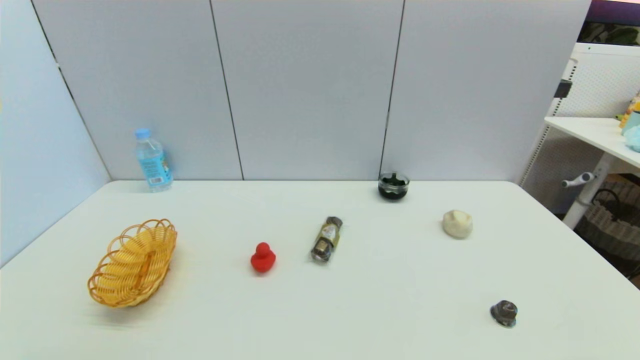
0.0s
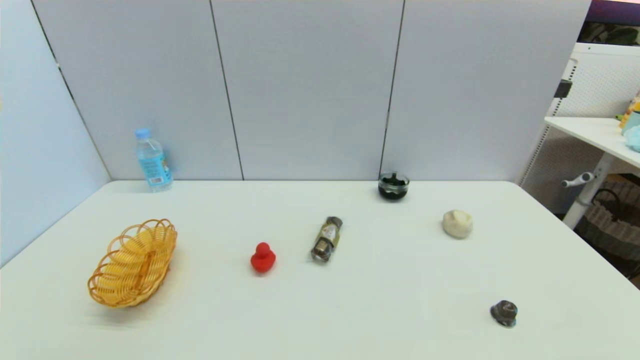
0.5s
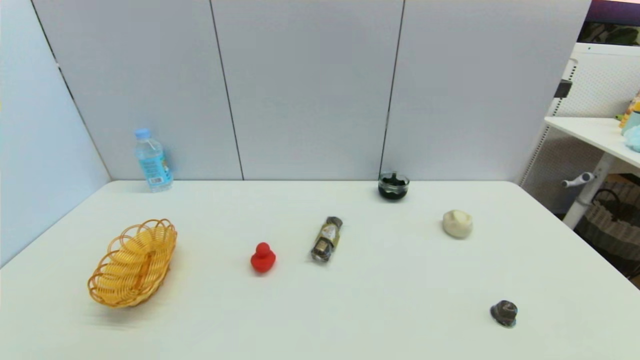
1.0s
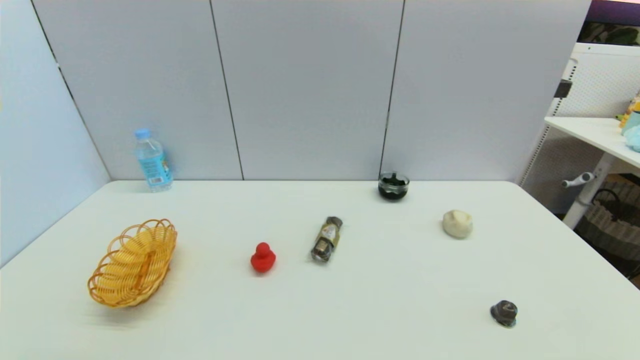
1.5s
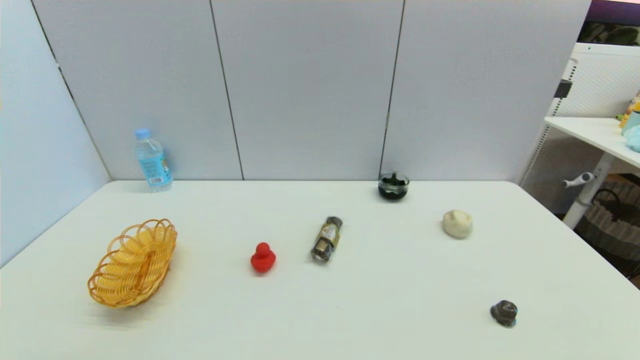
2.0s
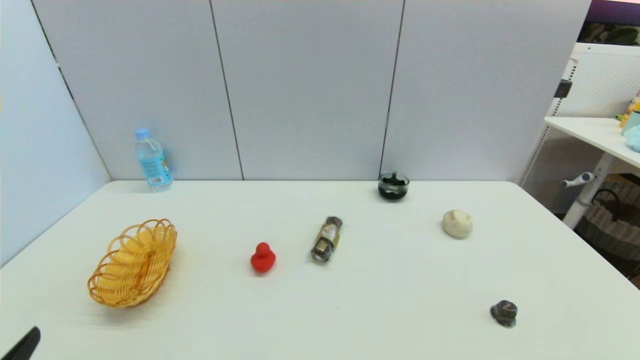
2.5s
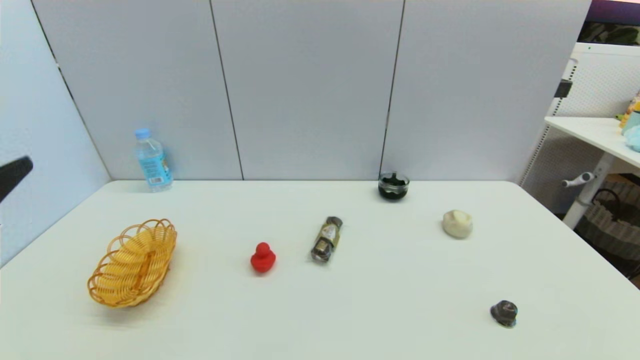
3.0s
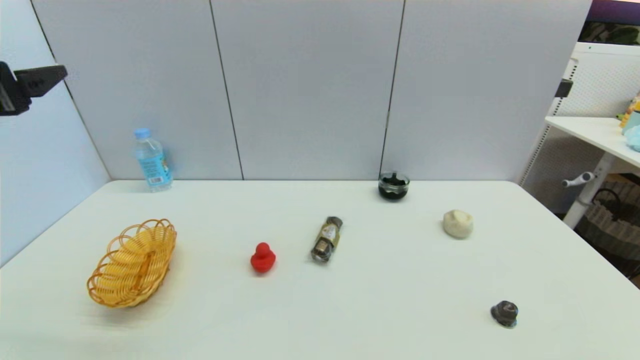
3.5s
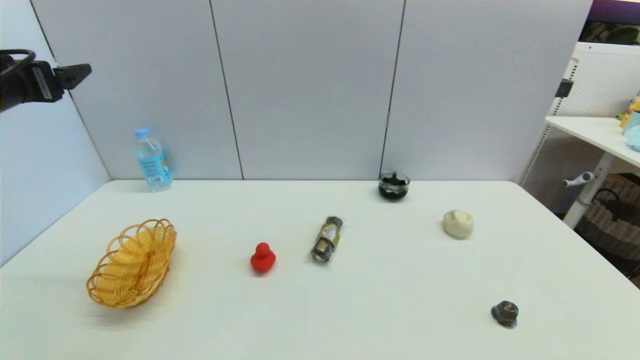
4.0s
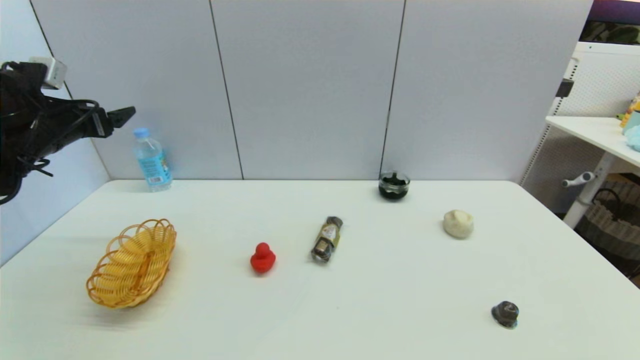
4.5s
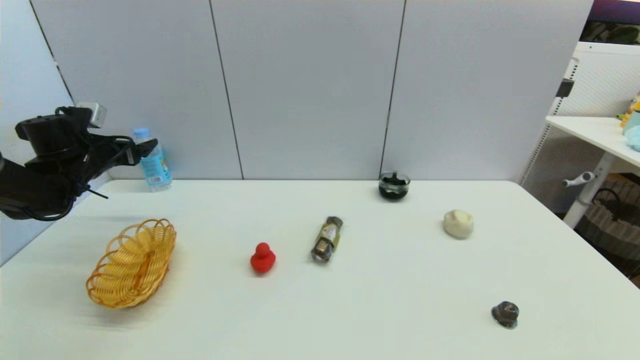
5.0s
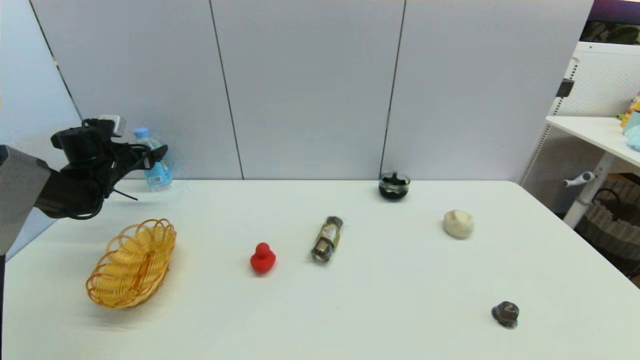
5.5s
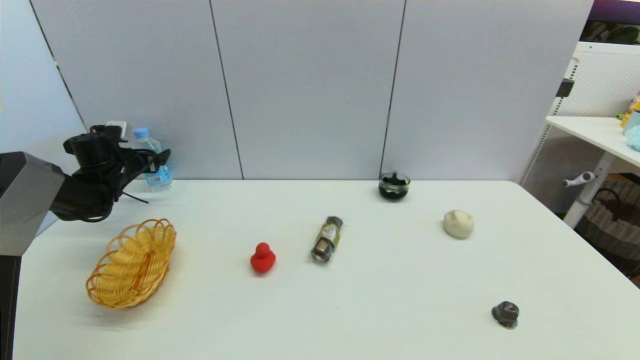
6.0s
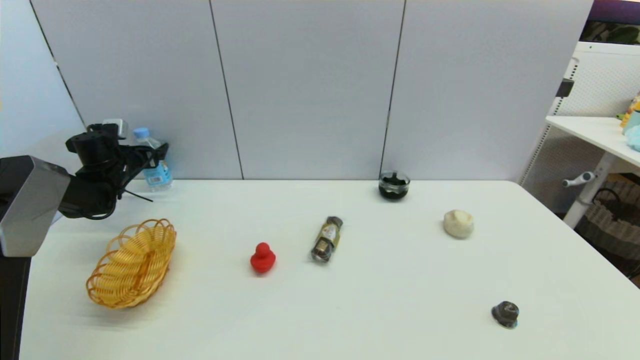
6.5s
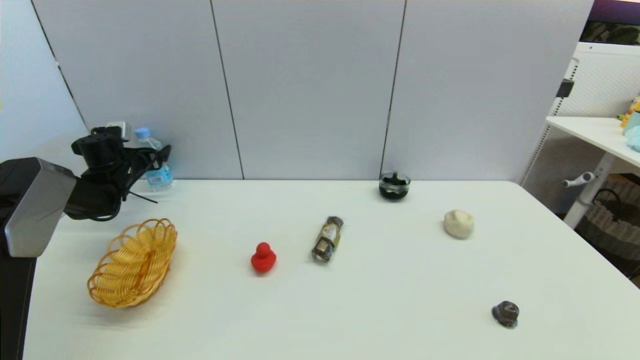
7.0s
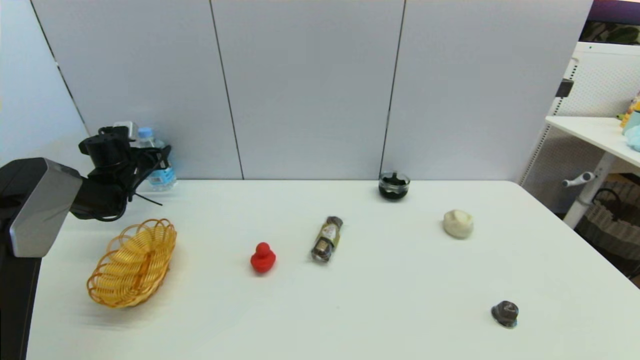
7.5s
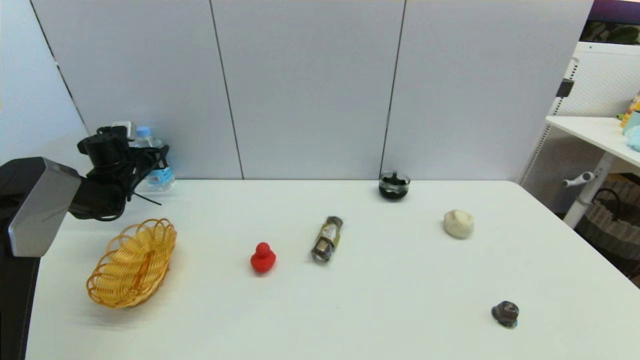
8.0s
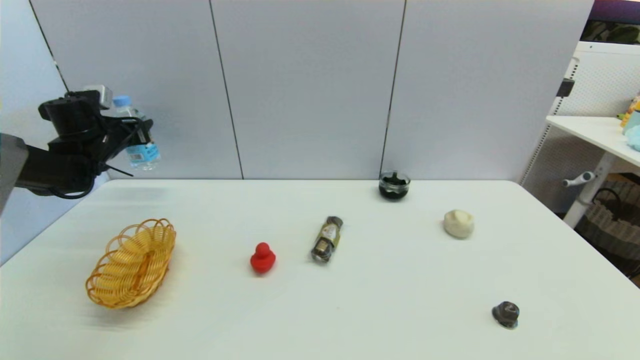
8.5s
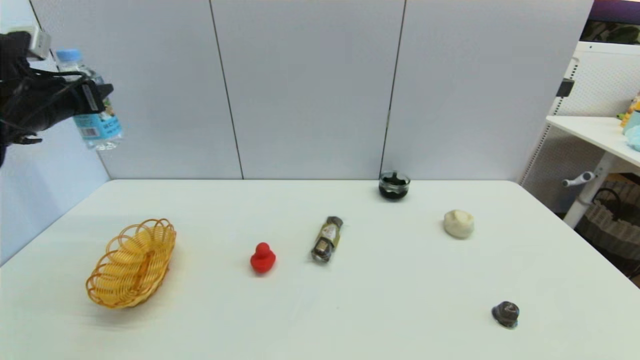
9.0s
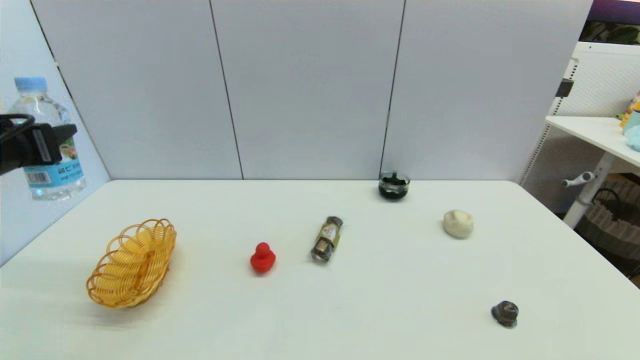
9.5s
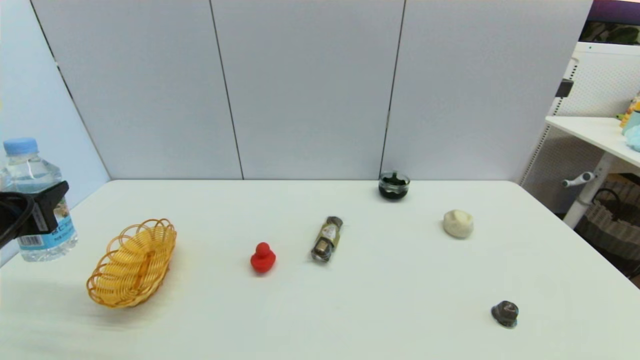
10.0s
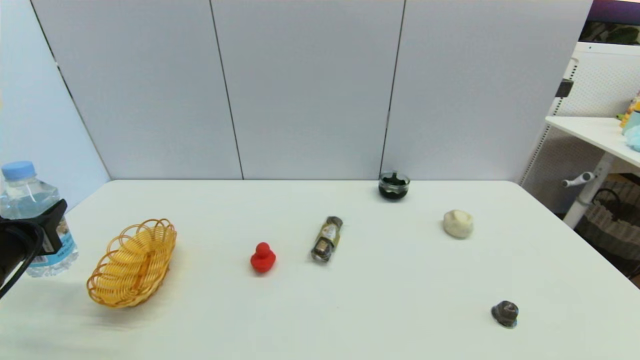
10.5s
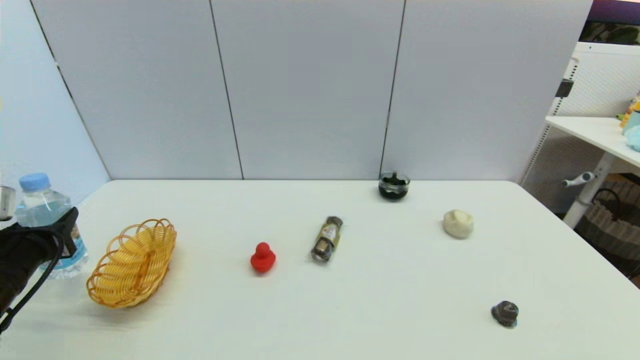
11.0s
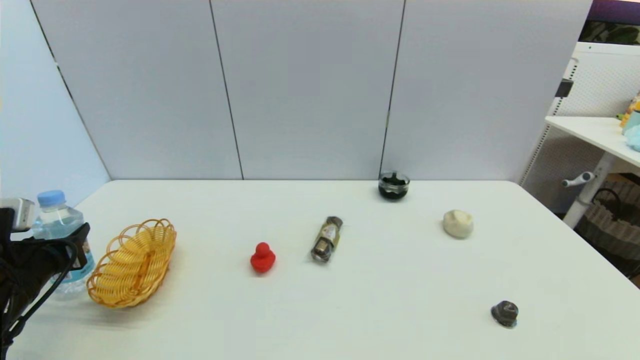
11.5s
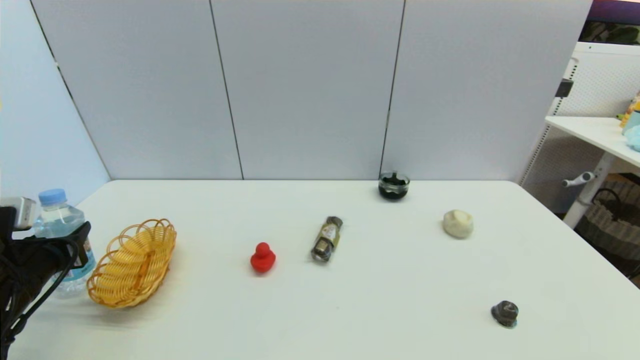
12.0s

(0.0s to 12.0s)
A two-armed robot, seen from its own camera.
Step, 2.5s - 8.0s: Grasp the soda water with left gripper.
2.0s - 4.0s: The left gripper moves forward and upward, some 40 cm.
4.0s - 6.0s: The left gripper moves downward and forward, approximately 30 cm.
6.0s - 8.0s: The left gripper closes up.
8.0s - 10.0s: The left gripper heads backward, covering about 30 cm.
10.0s - 12.0s: The left gripper shifts approximately 10 cm downward.

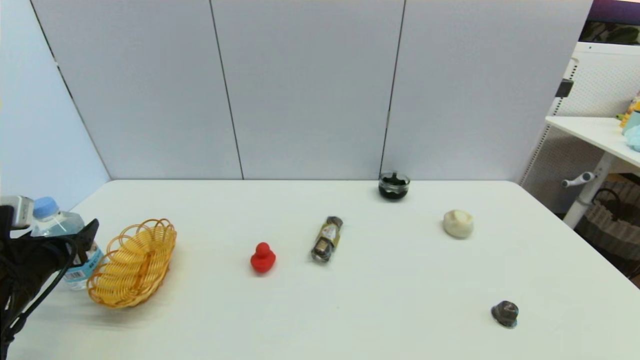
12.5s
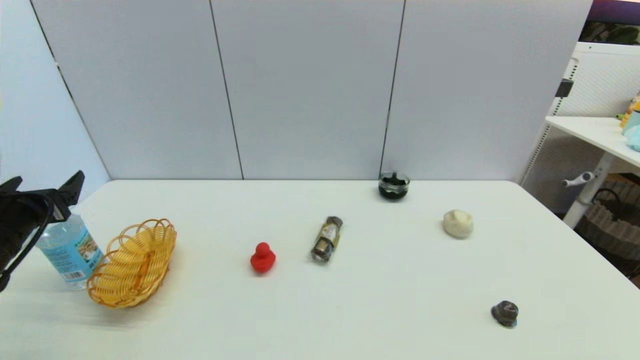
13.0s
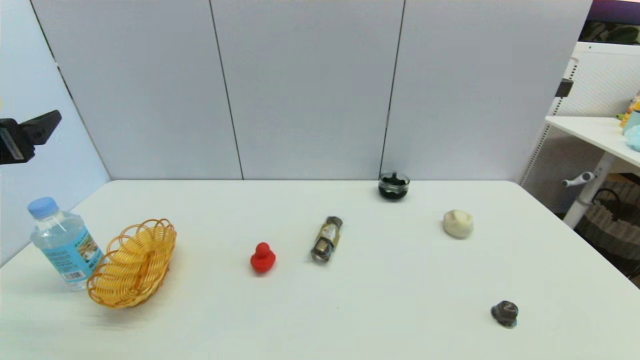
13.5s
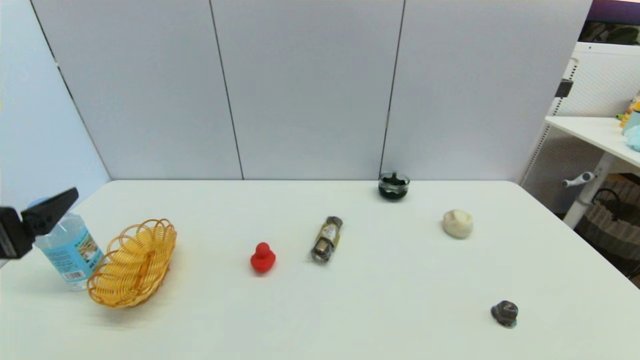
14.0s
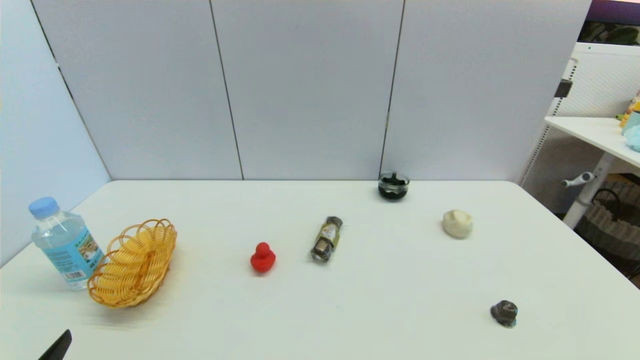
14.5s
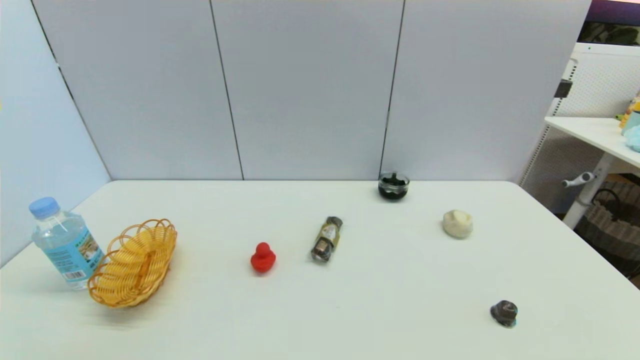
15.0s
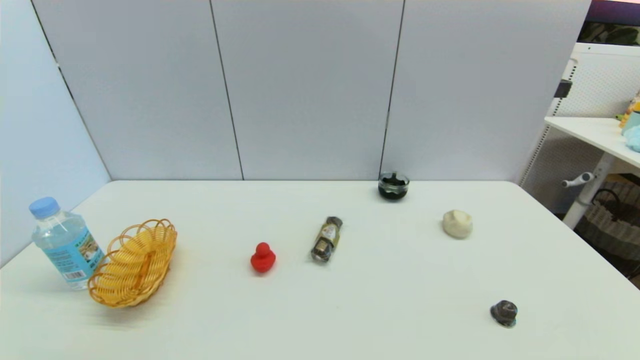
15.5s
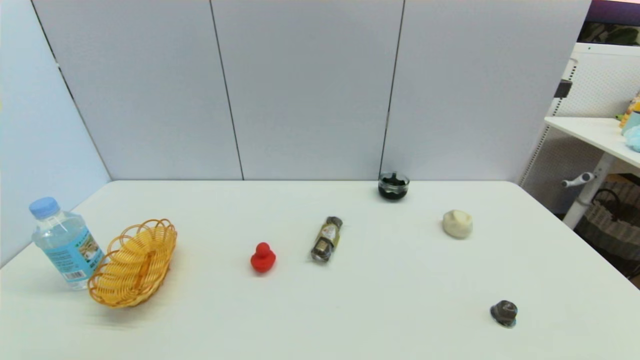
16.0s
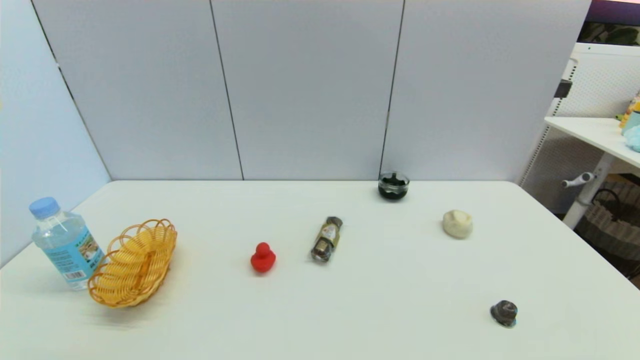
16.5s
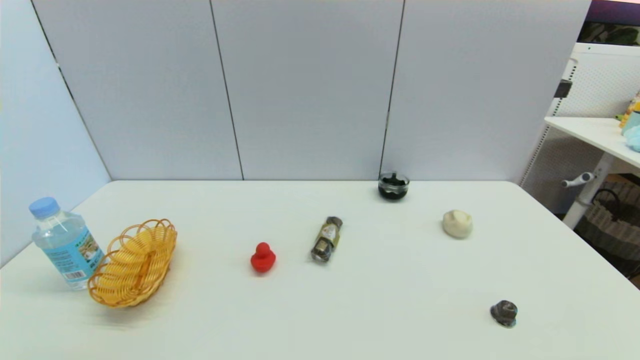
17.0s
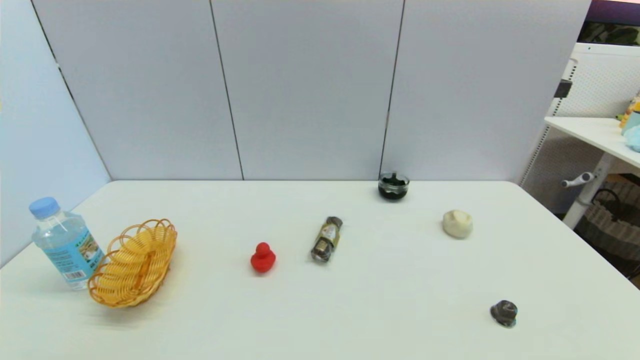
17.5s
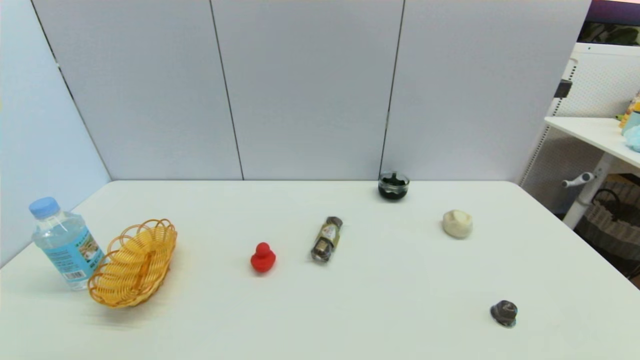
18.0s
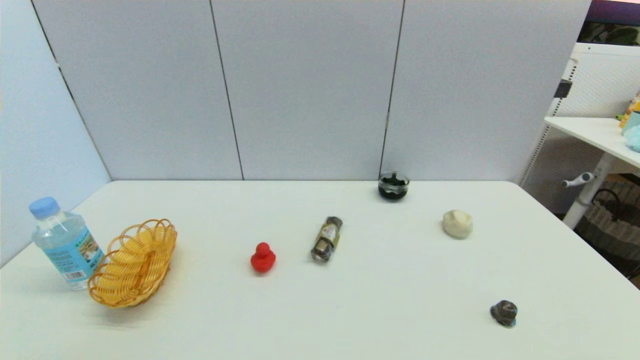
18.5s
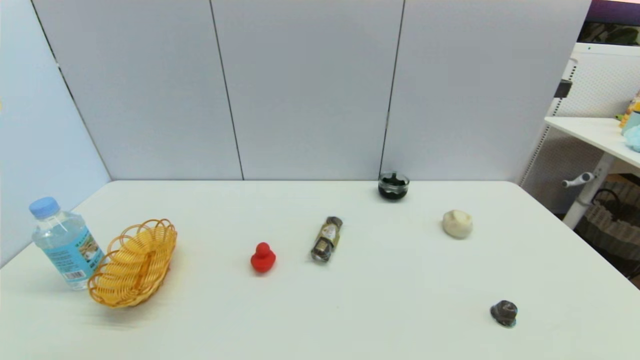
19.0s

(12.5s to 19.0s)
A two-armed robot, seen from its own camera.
12.5s - 14.5s: The left gripper shifts some 20 cm backward, and opens.

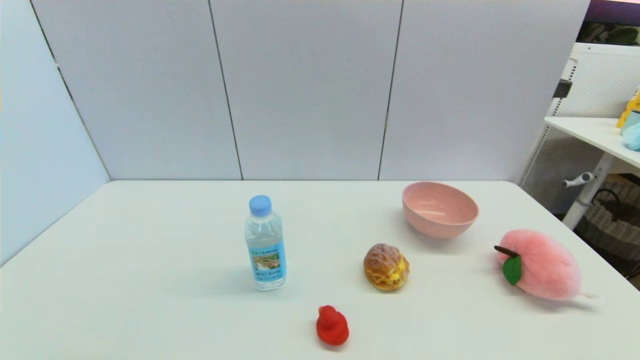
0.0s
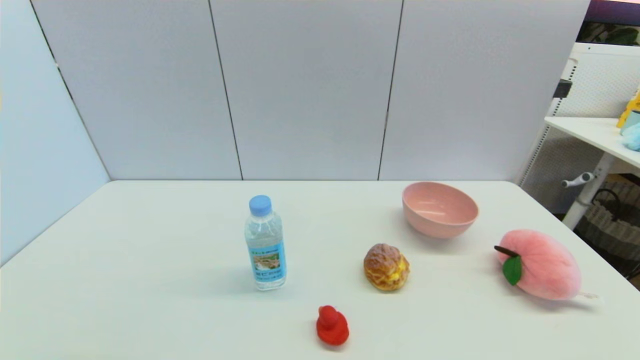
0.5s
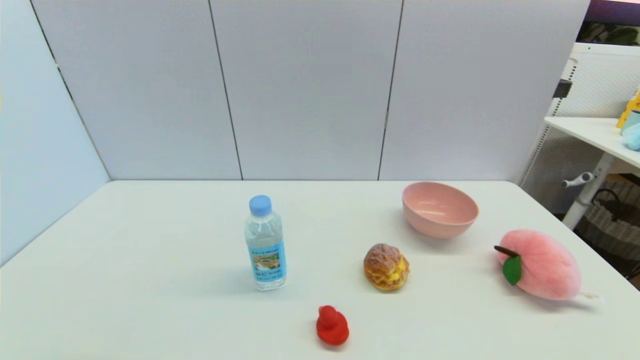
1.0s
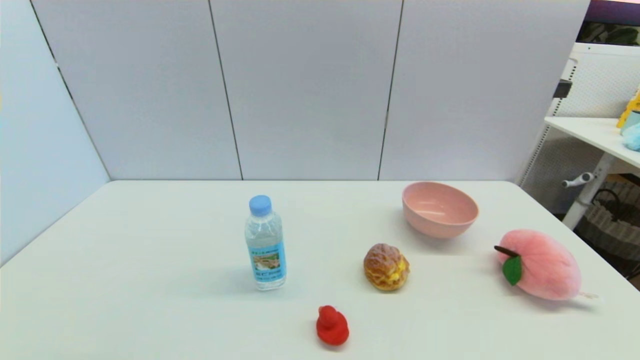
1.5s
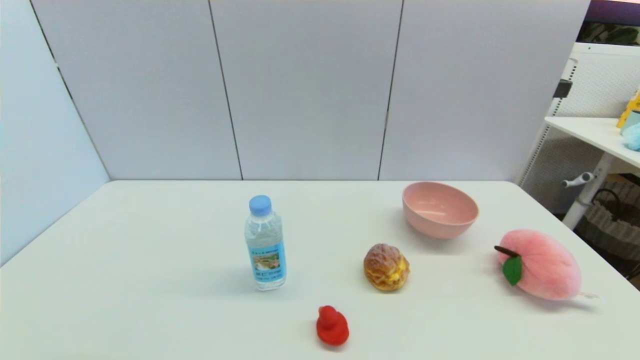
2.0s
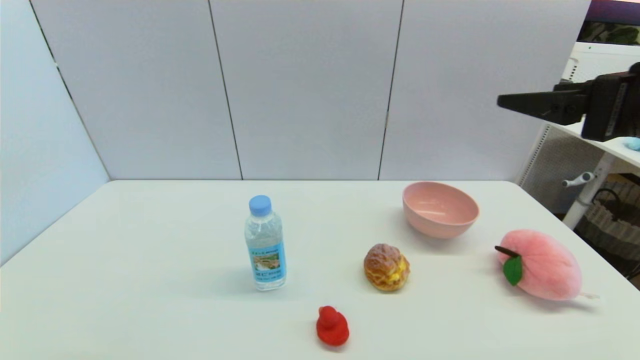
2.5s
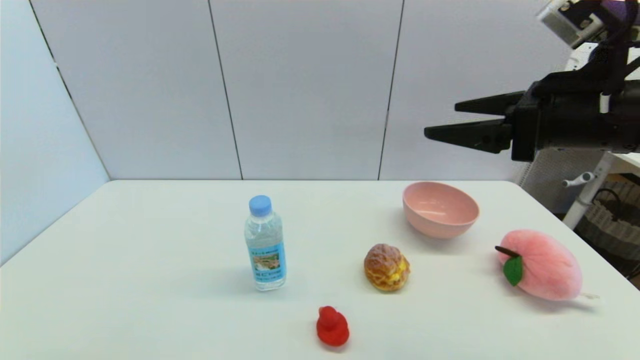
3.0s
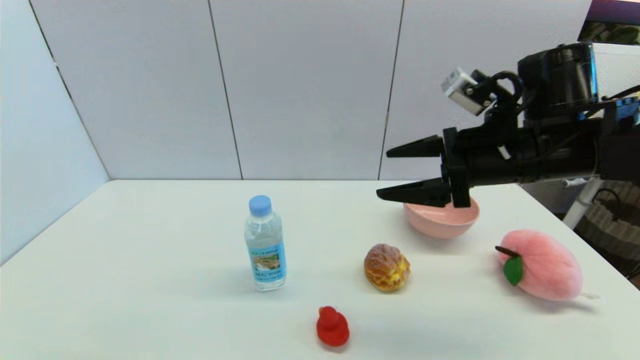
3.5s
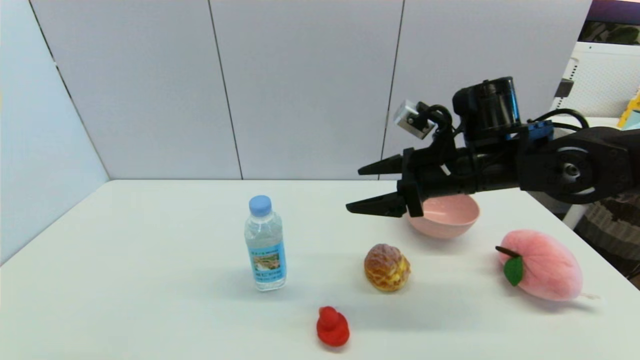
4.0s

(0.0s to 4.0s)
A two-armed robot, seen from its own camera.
2.0s - 4.0s: The right gripper moves forward, to the left and downward, approximately 30 cm.
